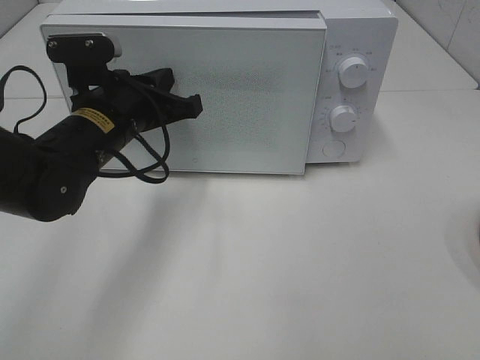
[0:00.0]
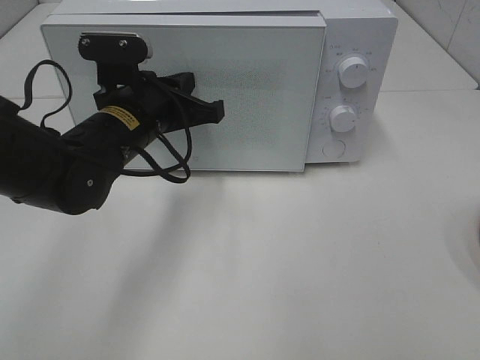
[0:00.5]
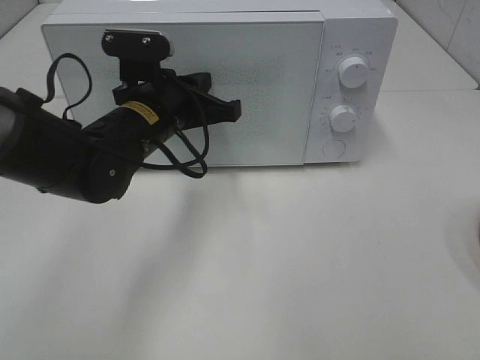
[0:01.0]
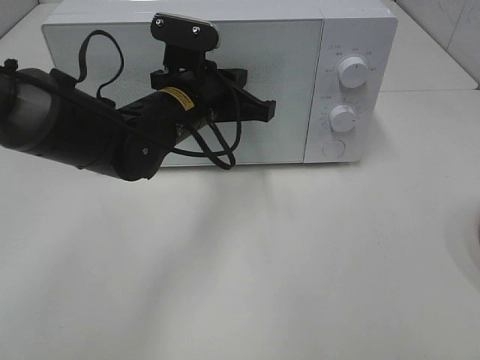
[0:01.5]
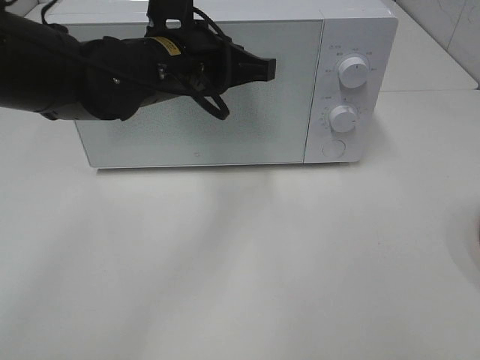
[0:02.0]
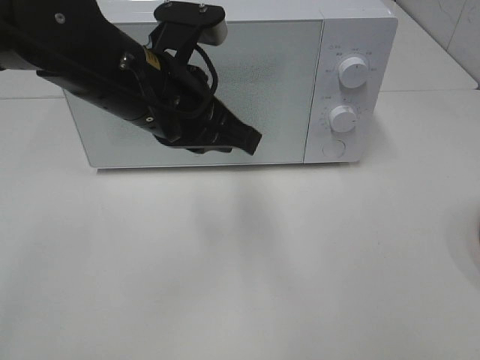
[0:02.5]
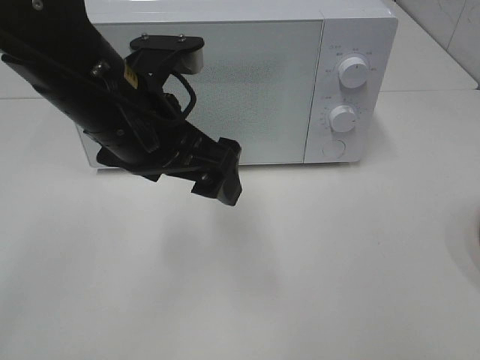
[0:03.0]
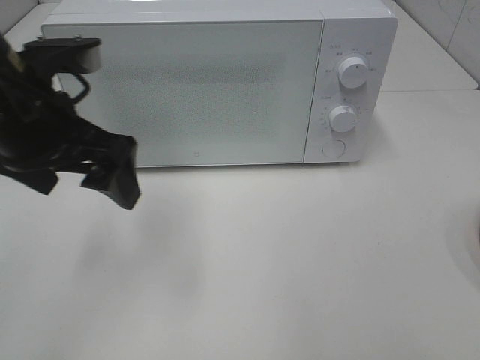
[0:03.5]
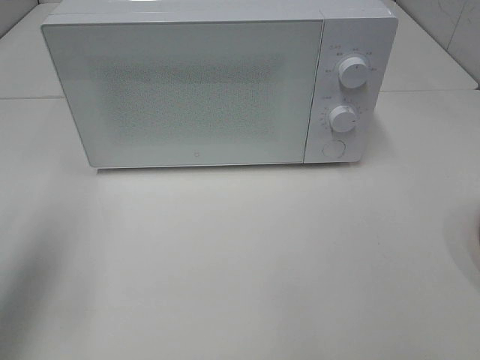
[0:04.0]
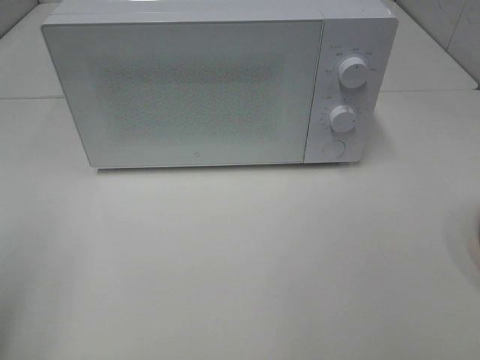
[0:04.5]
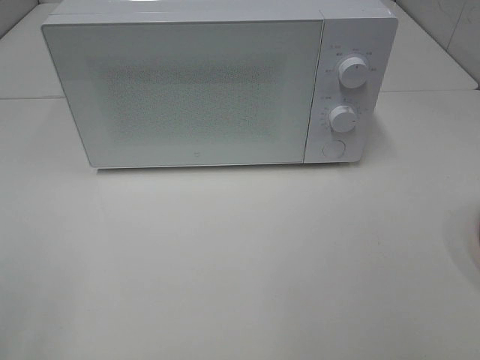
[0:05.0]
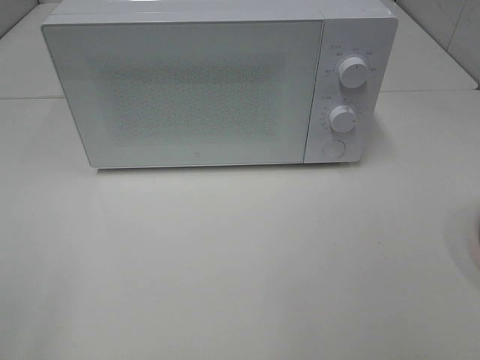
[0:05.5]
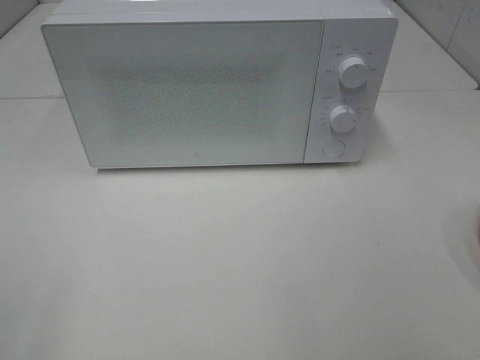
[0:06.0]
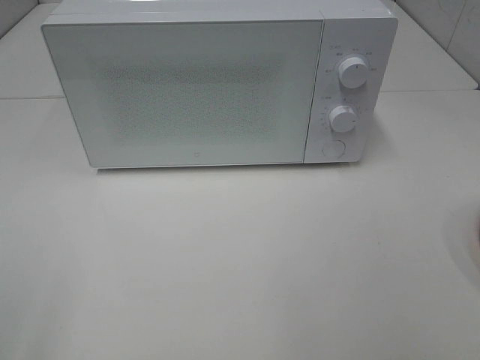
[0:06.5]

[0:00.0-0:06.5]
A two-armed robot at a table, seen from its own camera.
Task of the whole recording: Heat the burger.
0:00.0 to 0:02.0: The left gripper heads to the right and upward, covering approximately 10 cm.
0:02.0 to 0:04.5: The left gripper is displaced to the left and backward by about 35 cm, and opens its fingers.

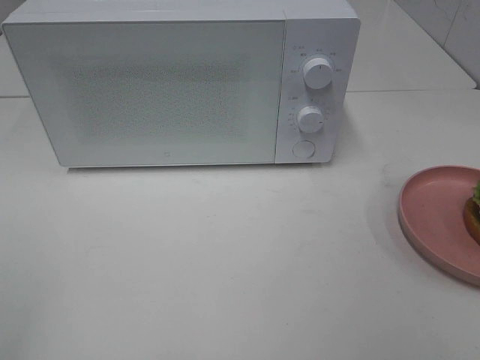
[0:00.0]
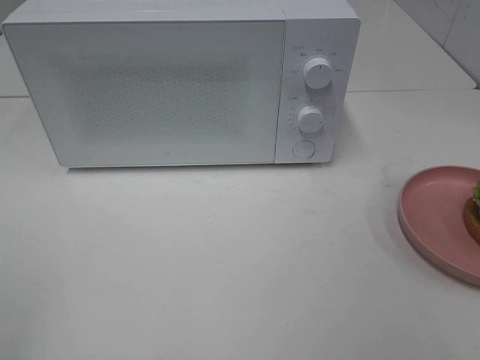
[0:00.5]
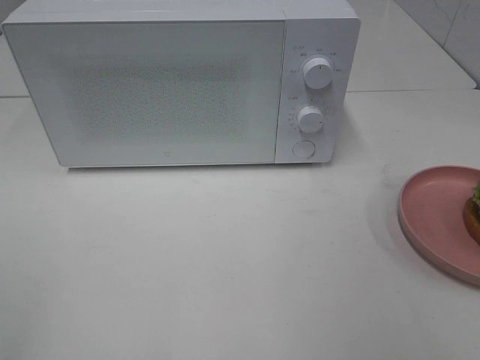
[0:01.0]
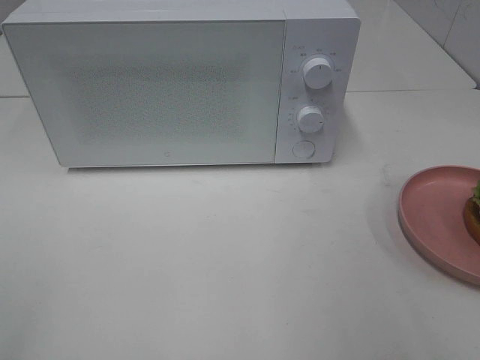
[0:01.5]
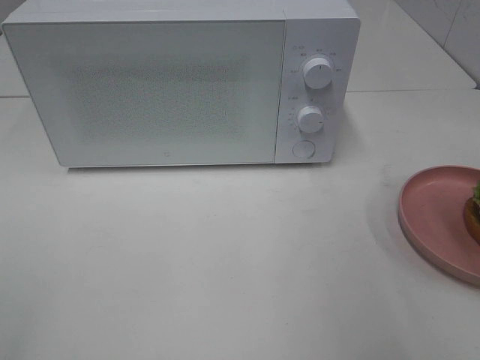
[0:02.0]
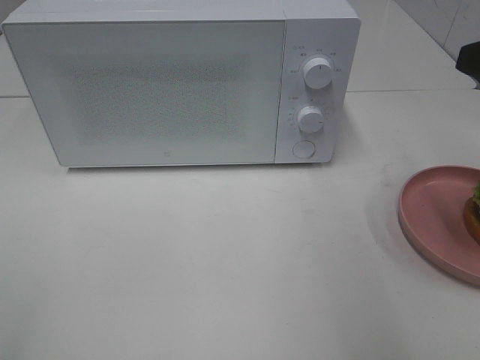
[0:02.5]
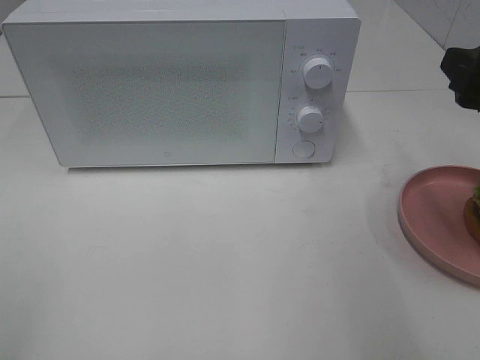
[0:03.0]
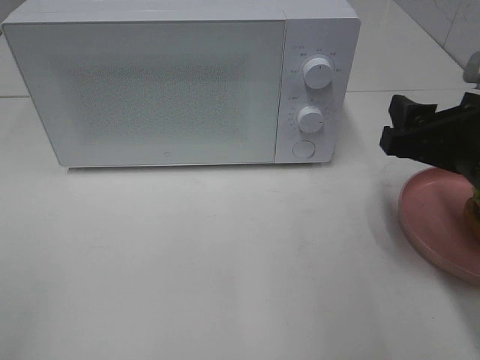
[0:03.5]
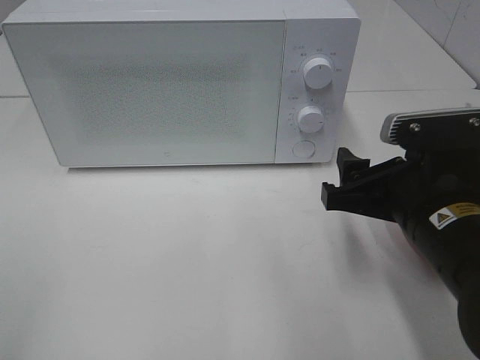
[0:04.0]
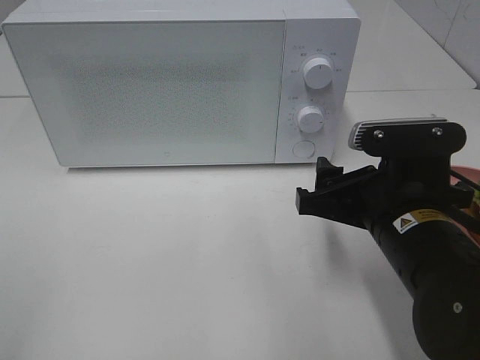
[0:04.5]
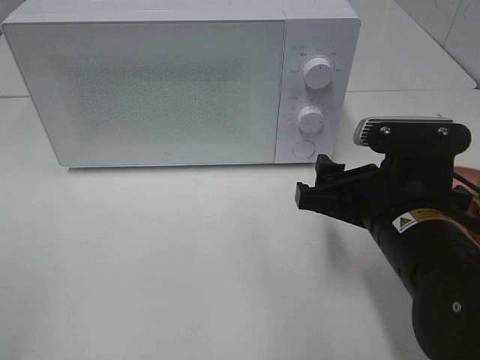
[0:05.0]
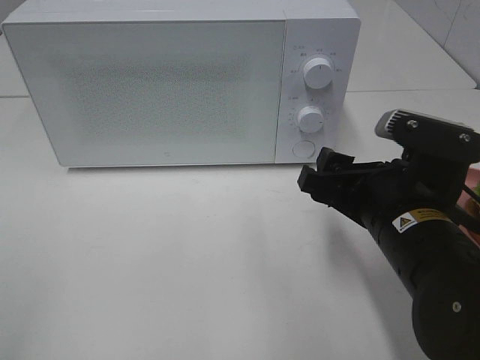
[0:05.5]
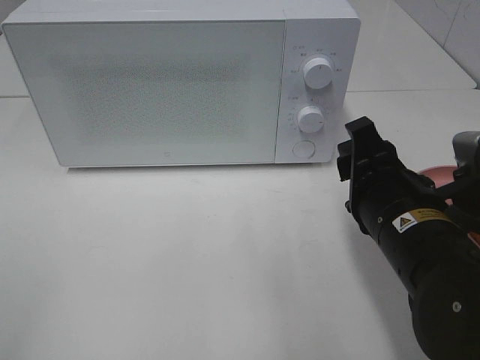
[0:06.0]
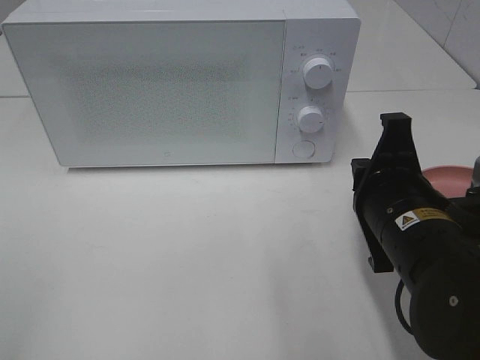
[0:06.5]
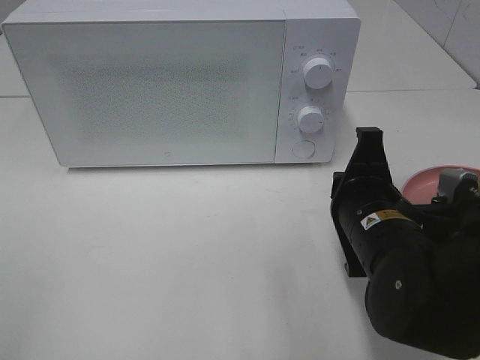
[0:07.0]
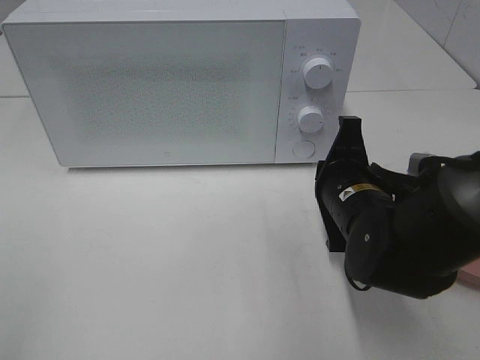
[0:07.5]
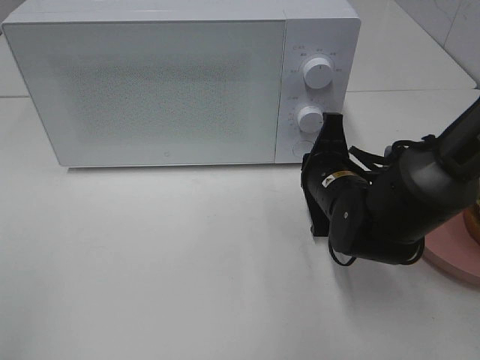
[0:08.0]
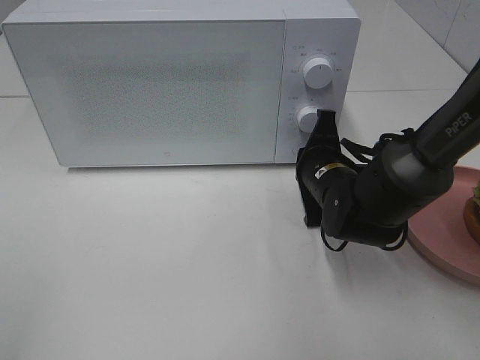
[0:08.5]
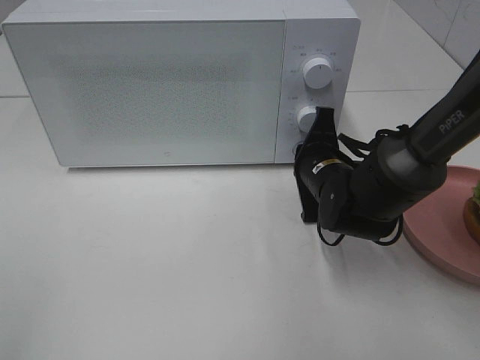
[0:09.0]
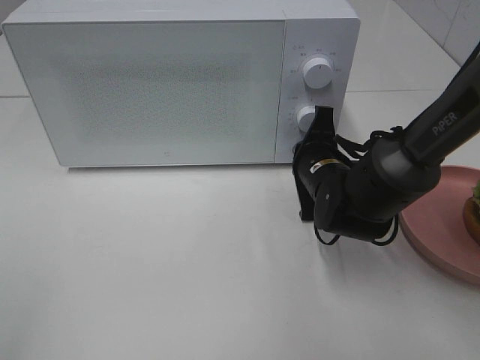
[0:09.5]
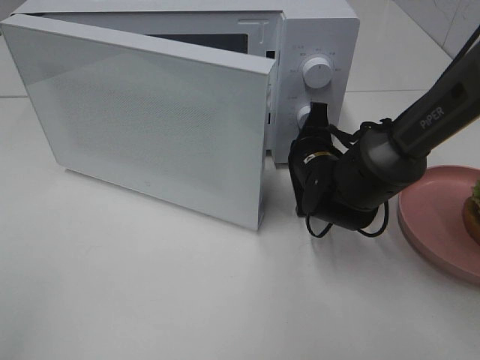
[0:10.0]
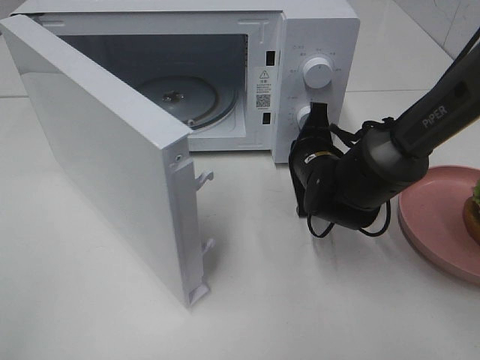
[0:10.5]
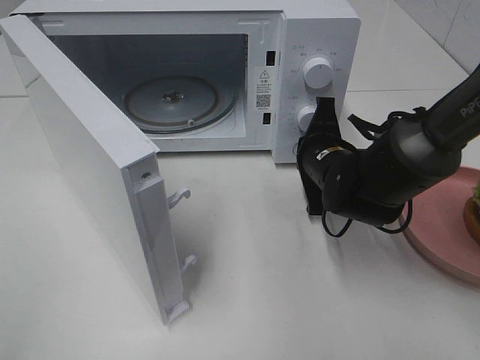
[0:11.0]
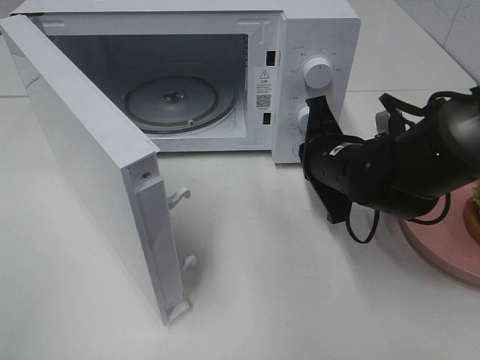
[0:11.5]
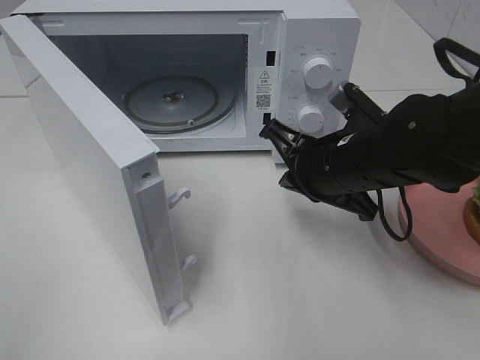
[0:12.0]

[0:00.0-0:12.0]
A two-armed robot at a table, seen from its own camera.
Task of the whole recording: Heat the burger.
Step, 0:00.0 to 0:11.5: Right hand: press the switch.
0:02.0 to 0:04.0: The right gripper moves downward and to the left, approximately 15 cm.
0:06.0 to 0:08.0: The right gripper is displaced forward and downward by approximately 15 cm, and closes its fingers.
0:08.0 to 0:10.0: The right gripper goes roughly 5 cm forward.
0:10.0 to 0:12.0: The right gripper is displaced backward and upward by some 10 cm.

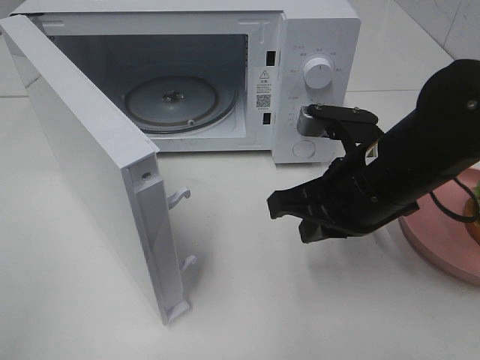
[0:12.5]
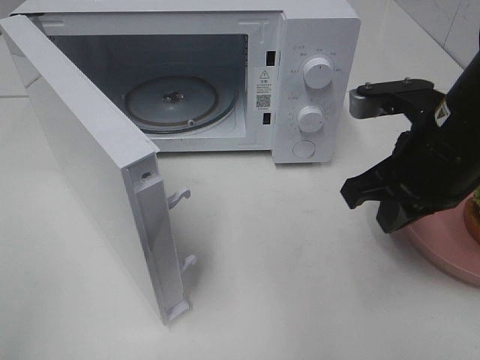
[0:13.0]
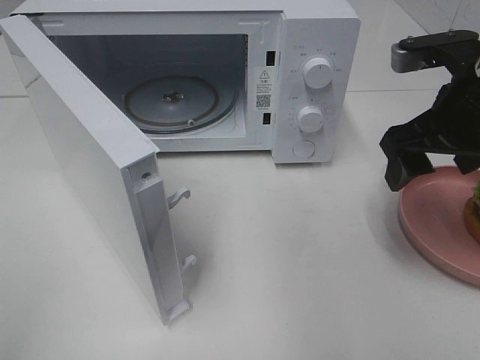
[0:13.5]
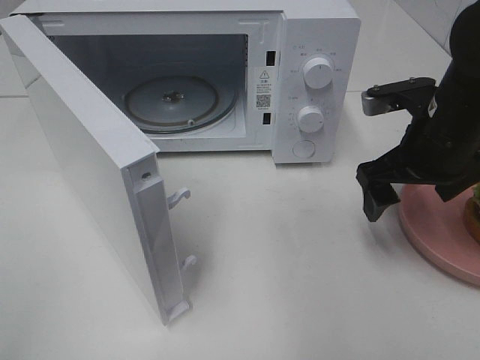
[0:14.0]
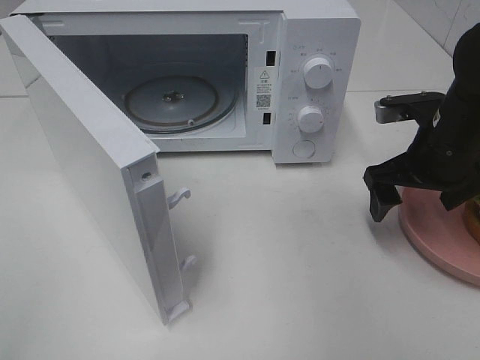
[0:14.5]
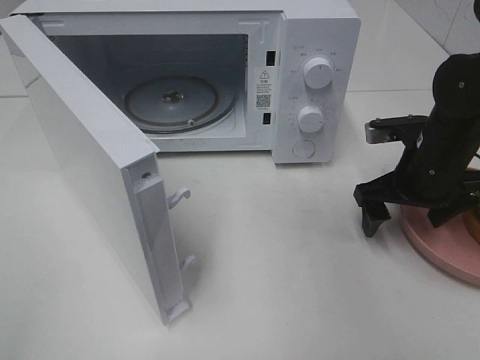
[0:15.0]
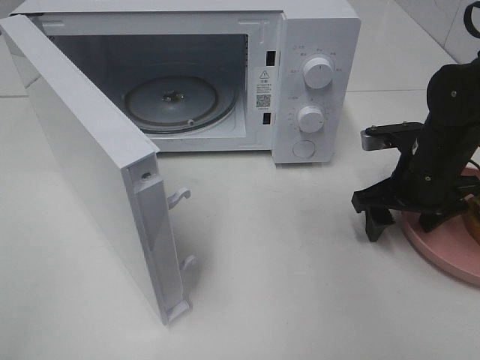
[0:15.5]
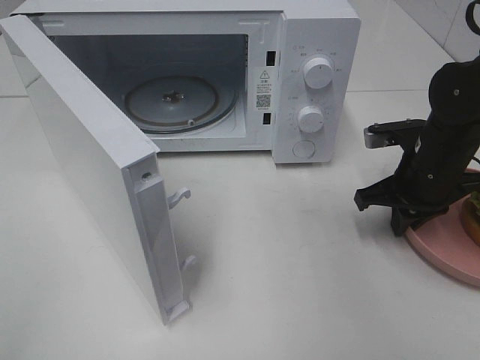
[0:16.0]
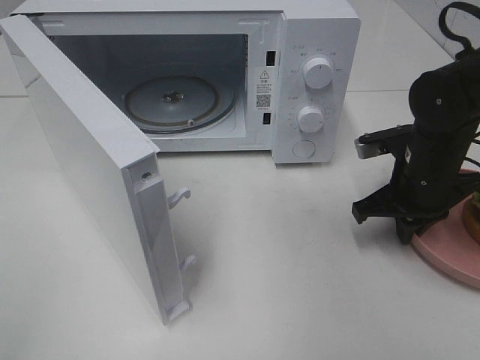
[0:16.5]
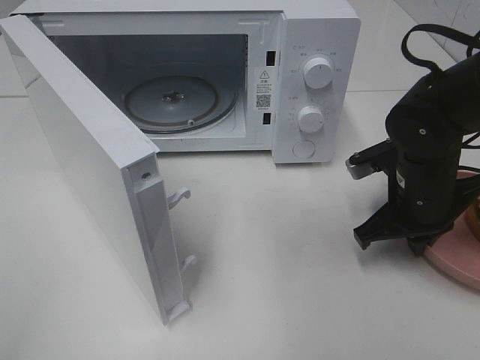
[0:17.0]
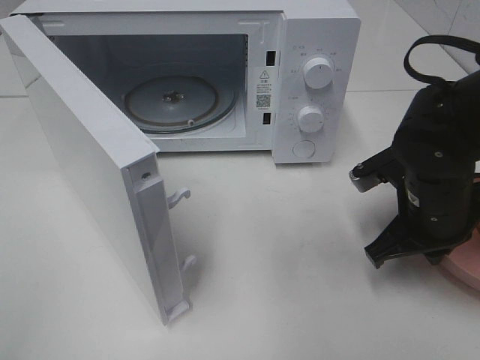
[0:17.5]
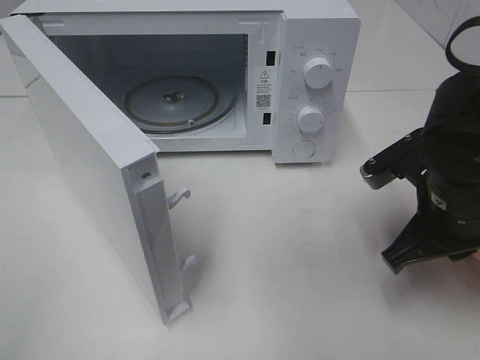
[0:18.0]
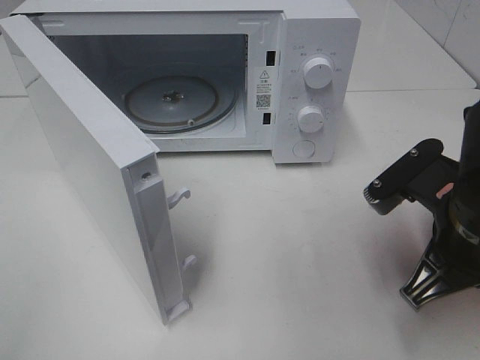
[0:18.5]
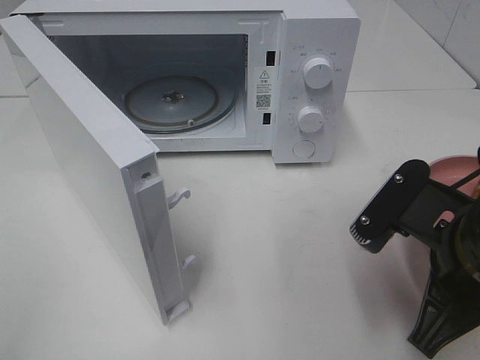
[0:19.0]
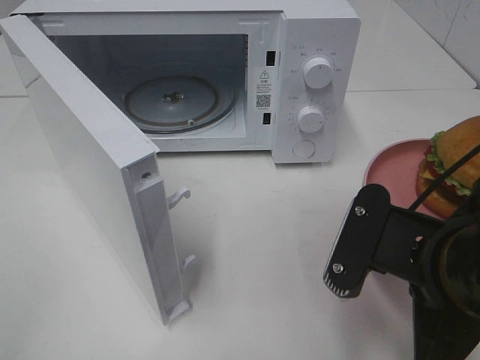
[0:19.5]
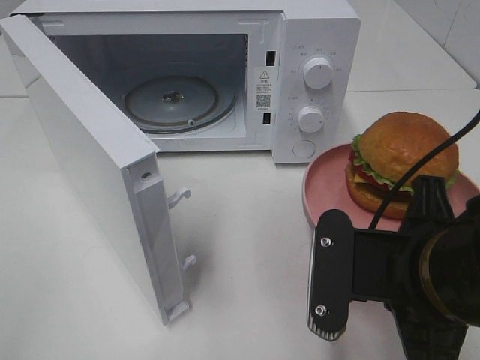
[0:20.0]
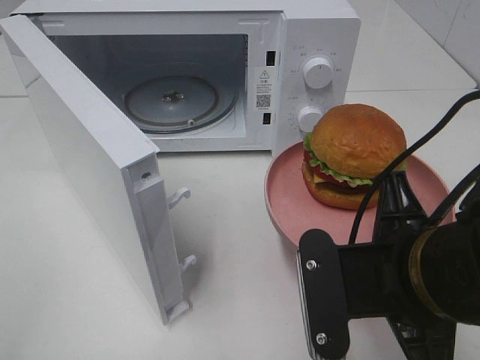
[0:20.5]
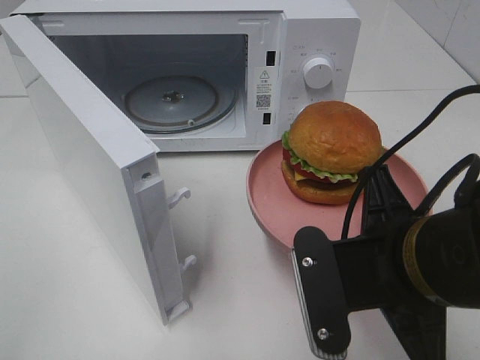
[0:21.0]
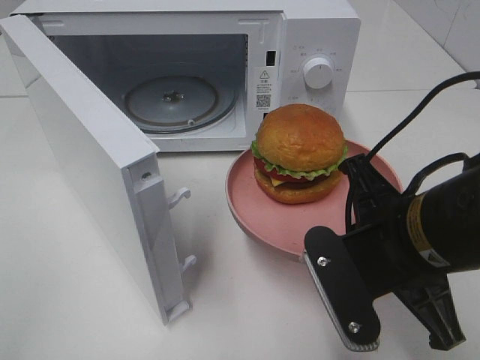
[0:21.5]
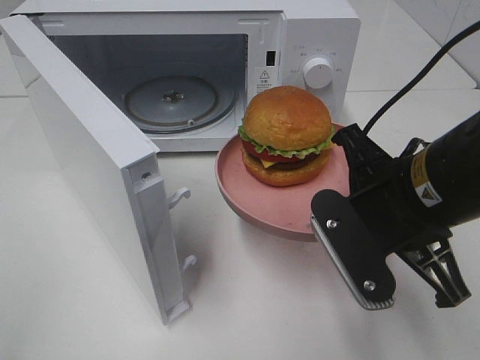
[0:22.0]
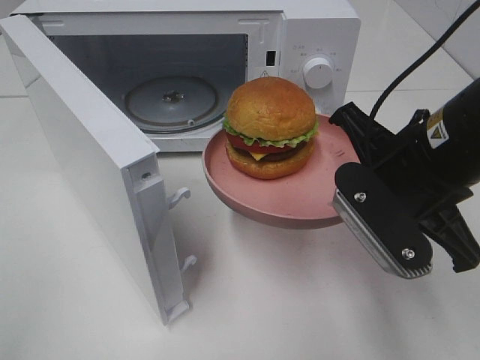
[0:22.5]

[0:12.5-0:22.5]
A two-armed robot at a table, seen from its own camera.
Task of the whole recording: Heat the burger.
Step, 0:12.5 to 0:16.5: Right hand: grab the plate with the hamburger.
0:12.5 to 0:14.5: The right gripper travels to the right and forward by some 15 cm, and opens up.
0:14.5 to 0:16.5: The right gripper closes up.
0:16.5 to 0:18.5: The right gripper heads backward and upward, covering approximately 15 cm.
0:18.5 to 0:20.5: The right gripper heads to the left and backward, covering approximately 10 cm.
0:20.5 to 0:22.5: The right gripper moves forward, about 10 cm.
